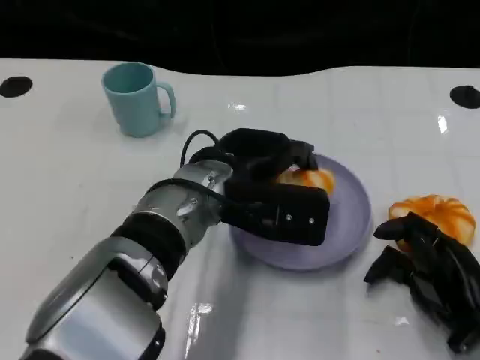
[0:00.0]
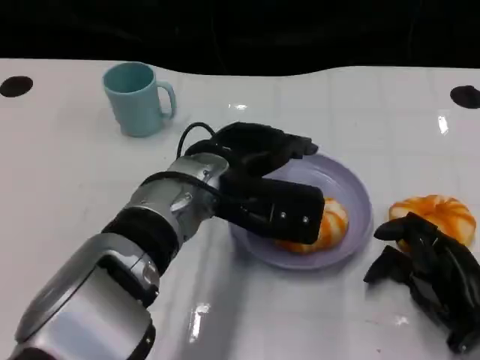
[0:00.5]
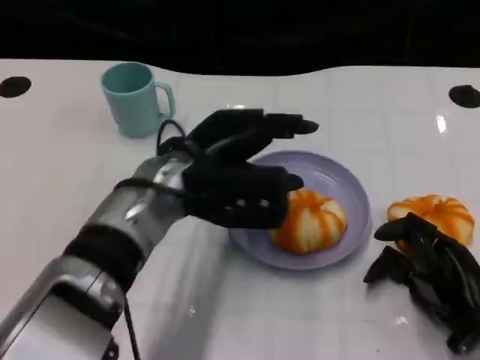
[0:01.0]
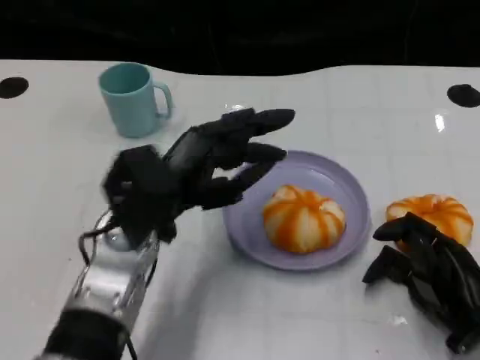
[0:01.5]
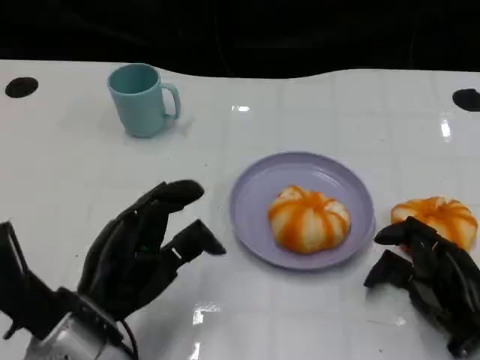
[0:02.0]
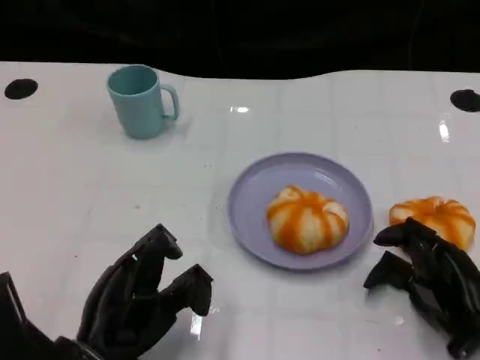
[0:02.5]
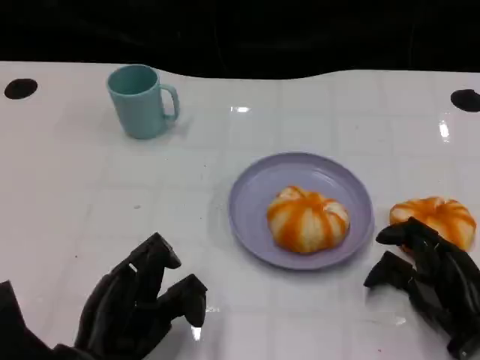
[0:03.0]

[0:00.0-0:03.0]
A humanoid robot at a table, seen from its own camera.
Task of the whole recording: Grasp the bread from the table and place it into the plate.
0:00.0 to 0:01.5: The left hand heads to the left, covering roughly 10 cm.
0:01.5 to 0:03.0: The left hand is displaced backward, downward and to the left by about 15 cm.

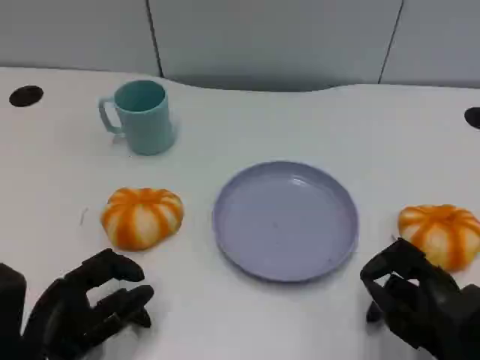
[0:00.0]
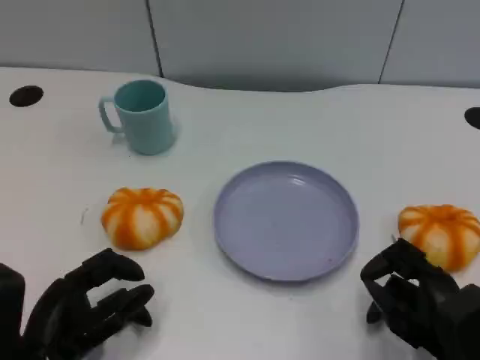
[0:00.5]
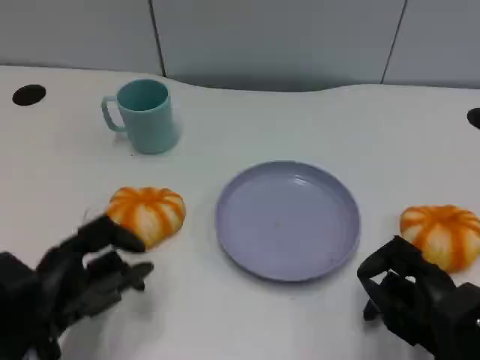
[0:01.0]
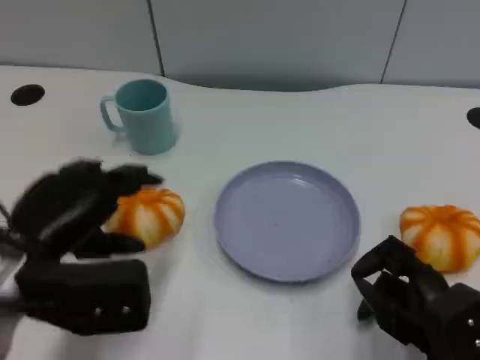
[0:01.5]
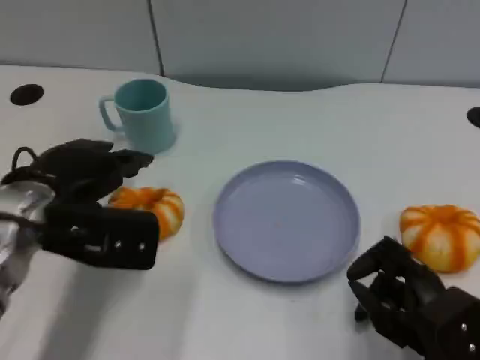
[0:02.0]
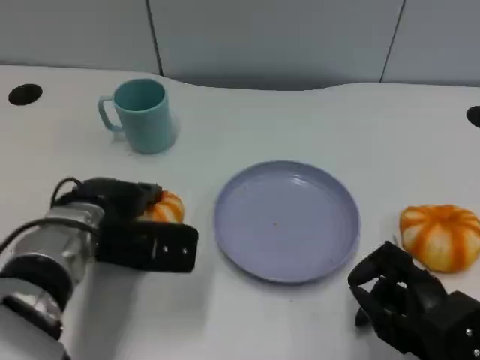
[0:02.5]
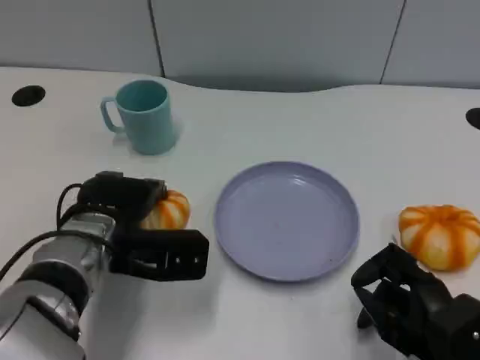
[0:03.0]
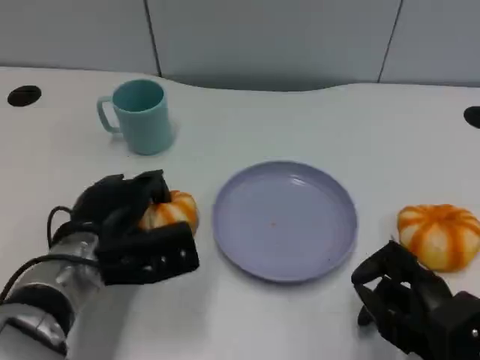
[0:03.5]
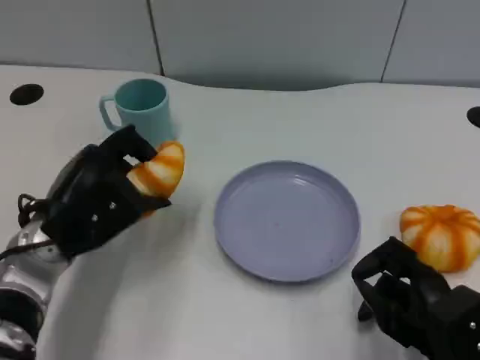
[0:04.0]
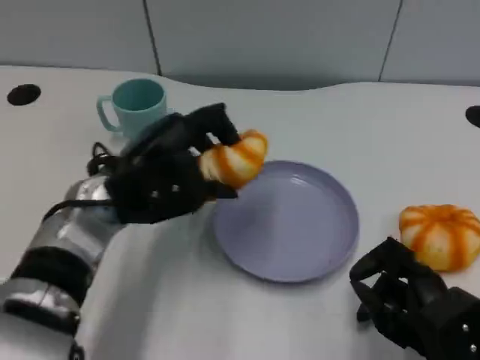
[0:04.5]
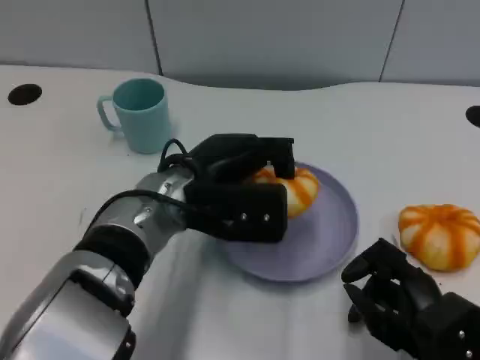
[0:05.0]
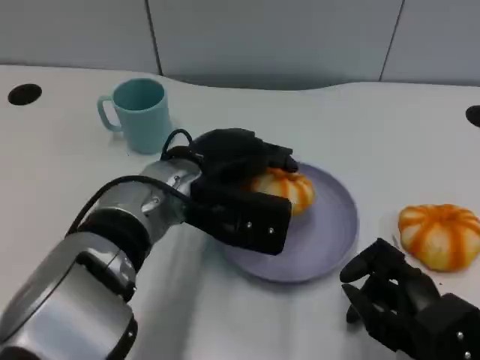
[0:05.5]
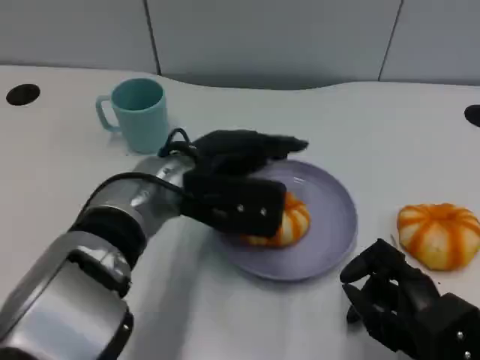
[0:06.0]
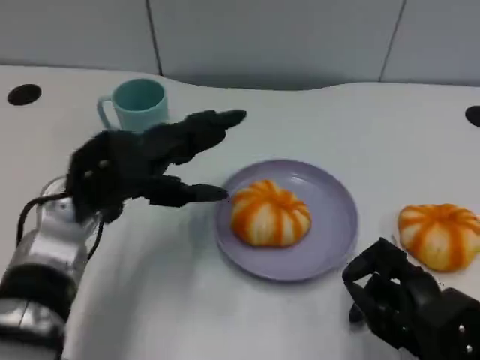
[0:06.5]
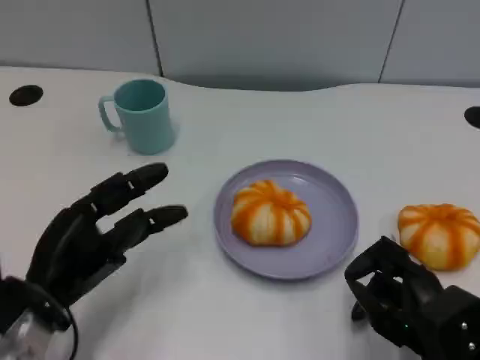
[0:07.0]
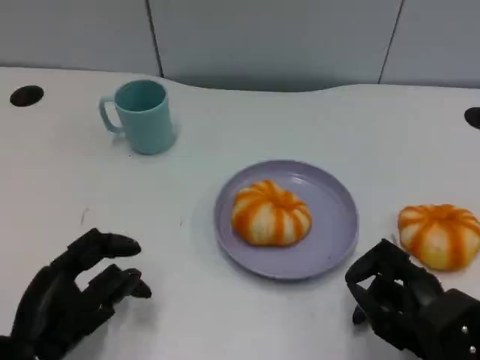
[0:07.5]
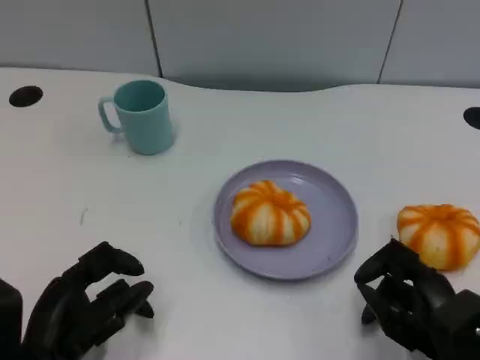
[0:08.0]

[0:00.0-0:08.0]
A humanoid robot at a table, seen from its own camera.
Task of the whole recording: Grasp the bread from the table and place it into the plate.
0:00.0 to 0:02.0: The left hand moves forward and upward, about 15 cm.
0:04.0 to 0:06.0: The left hand goes some 10 cm to the right.
0:06.0 to 0:08.0: The left hand heads backward, to the left and downward, covering some 25 cm.

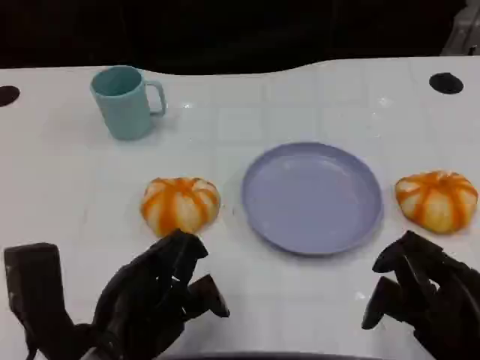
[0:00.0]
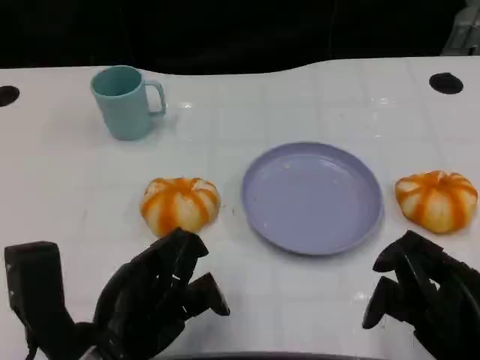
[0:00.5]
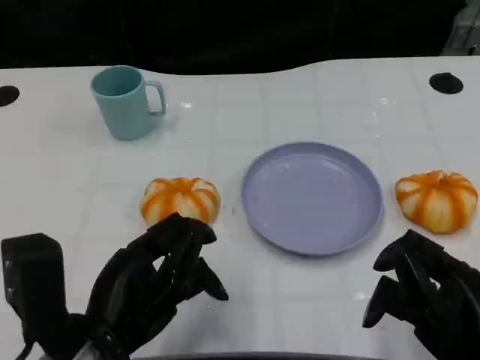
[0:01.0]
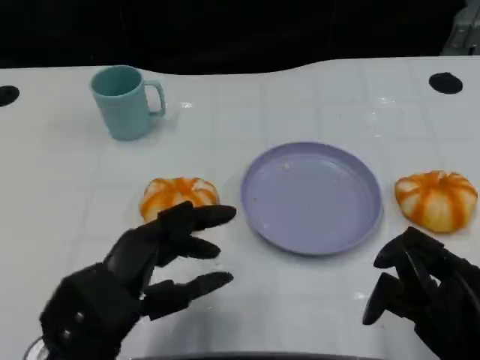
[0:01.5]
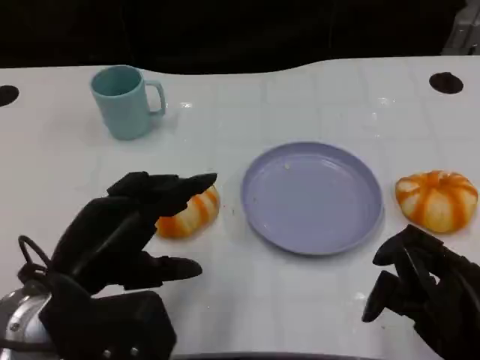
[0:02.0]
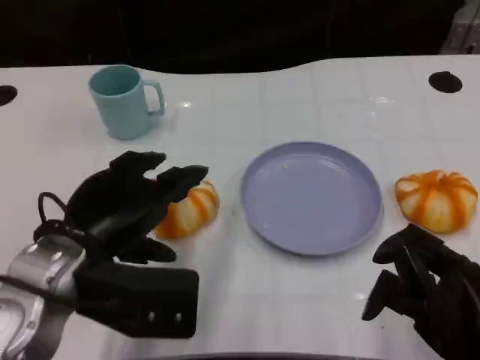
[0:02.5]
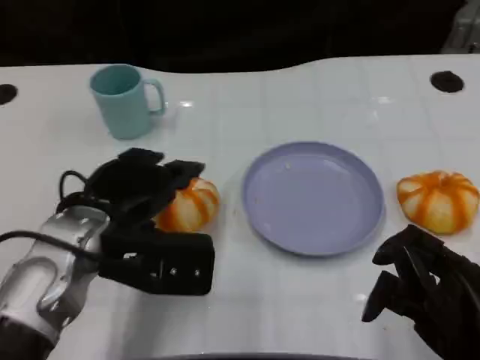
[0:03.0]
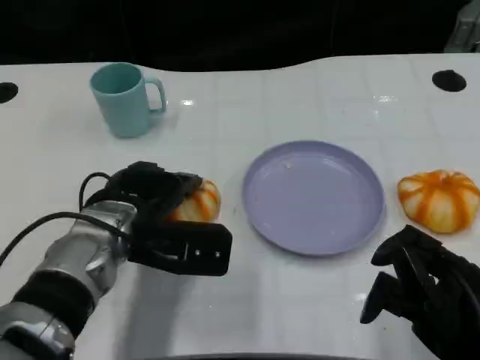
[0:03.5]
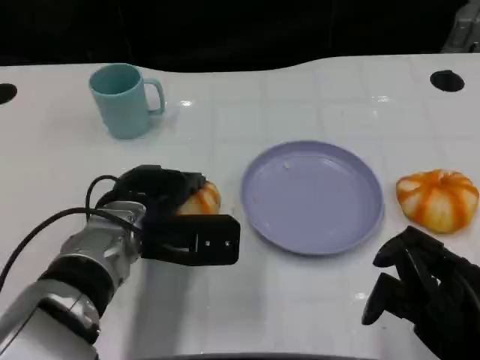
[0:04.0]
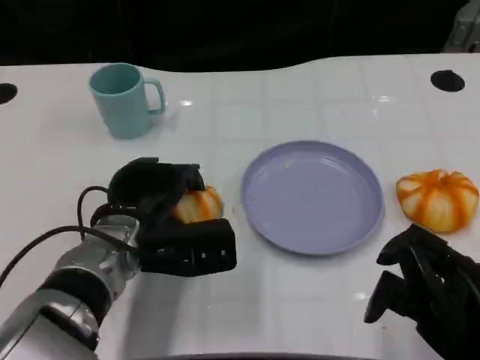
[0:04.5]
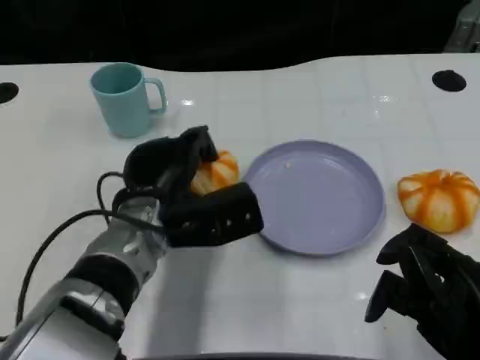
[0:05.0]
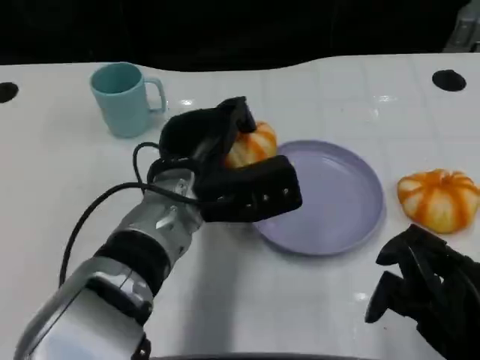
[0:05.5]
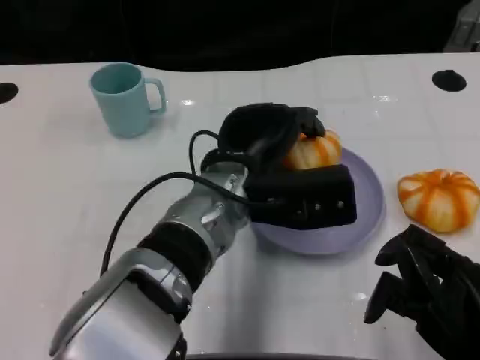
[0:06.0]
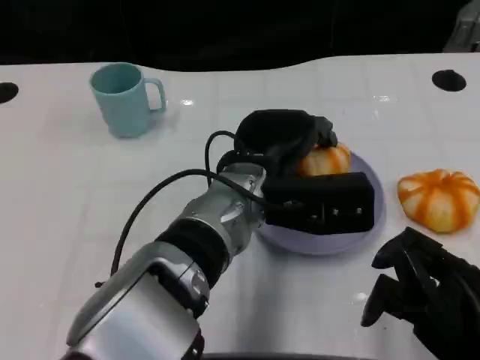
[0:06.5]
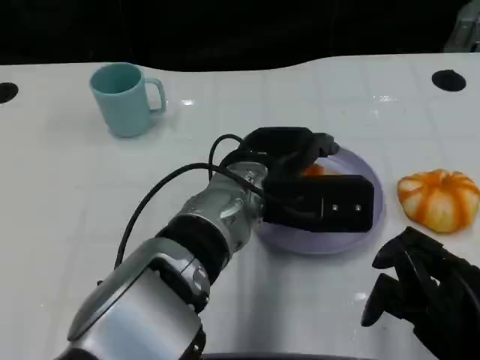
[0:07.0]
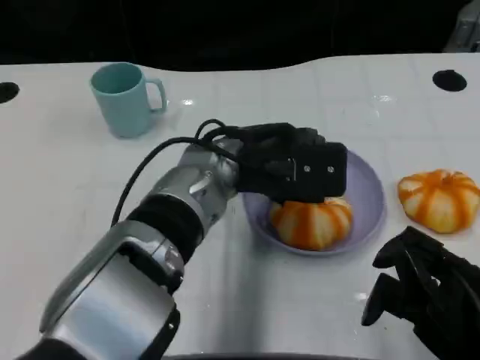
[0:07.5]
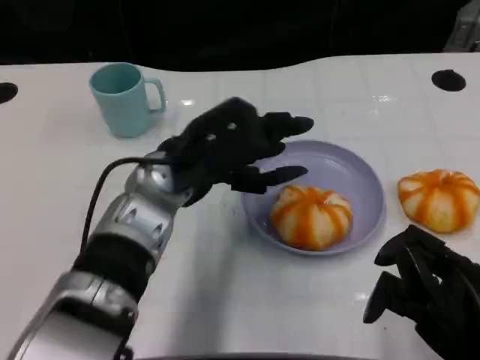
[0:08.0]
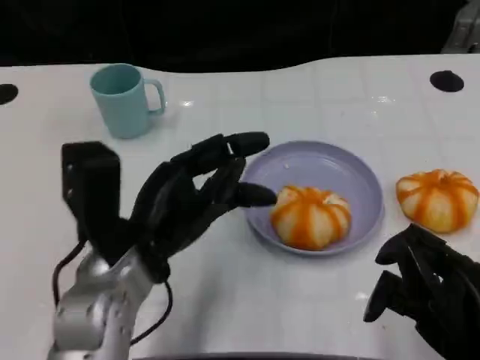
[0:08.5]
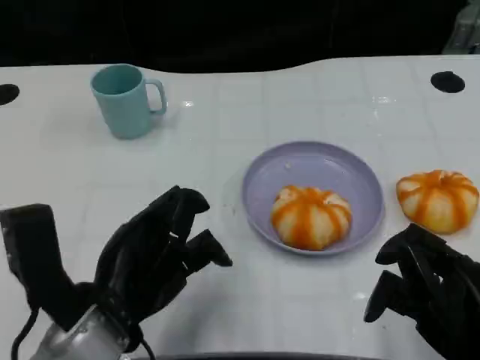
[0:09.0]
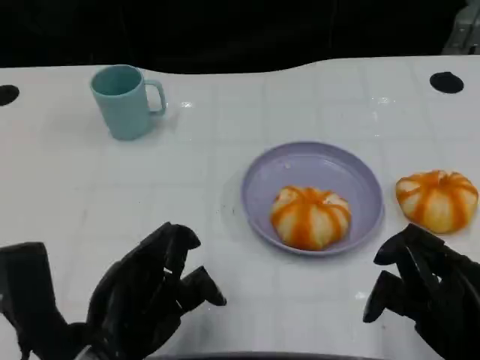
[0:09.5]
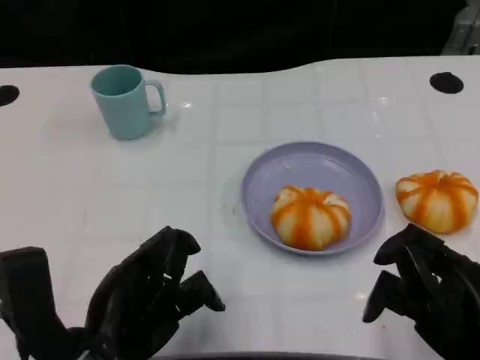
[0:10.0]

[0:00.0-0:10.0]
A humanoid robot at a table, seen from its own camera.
Task of the whole recording: Grasp the bread from the table and place it into the plate.
0:00.0 to 0:02.0: The left hand shifts by about 5 cm.
0:02.0 to 0:04.0: The left hand travels forward and to the right by approximately 10 cm.
0:04.0 to 0:06.0: The left hand heads to the right, covering approximately 10 cm.
0:06.0 to 0:08.0: The left hand is displaced to the left by approximately 10 cm.
0:08.0 to 0:10.0: The left hand shifts approximately 15 cm backward and to the left.

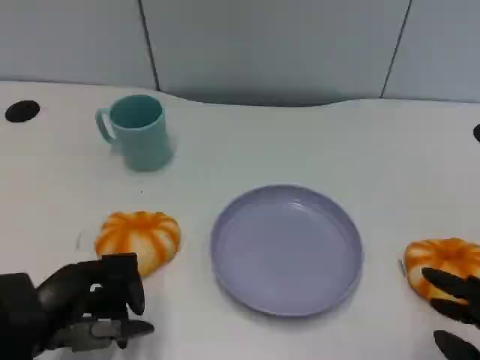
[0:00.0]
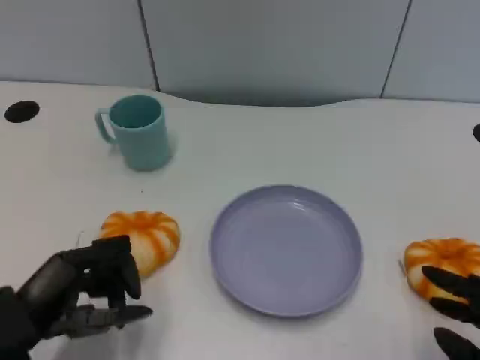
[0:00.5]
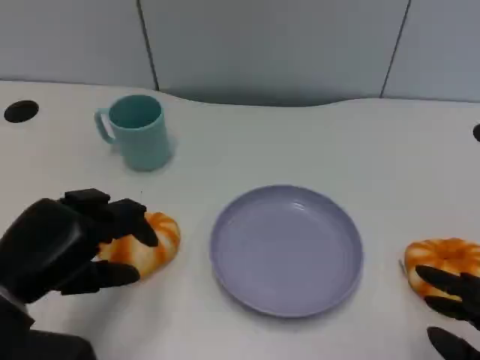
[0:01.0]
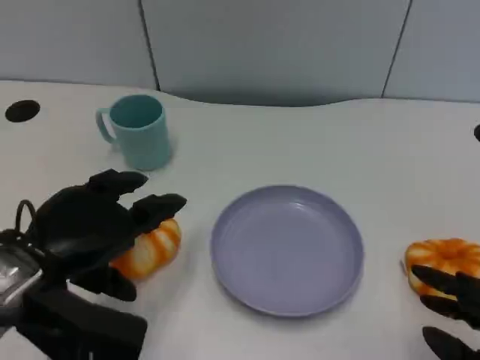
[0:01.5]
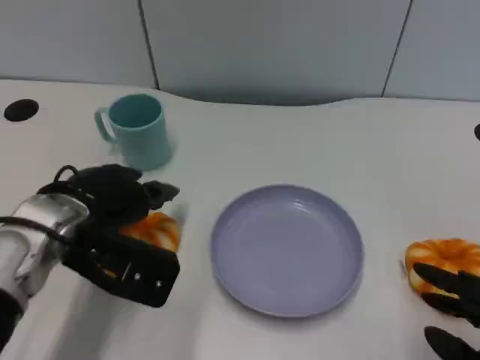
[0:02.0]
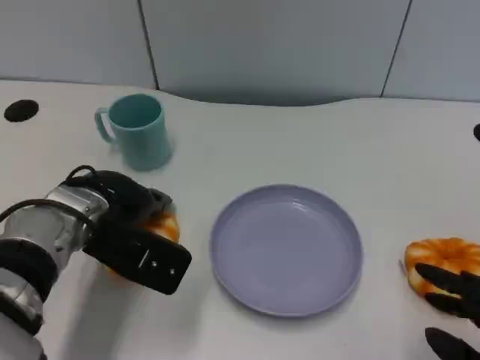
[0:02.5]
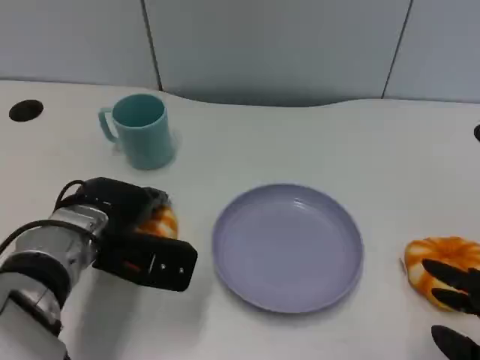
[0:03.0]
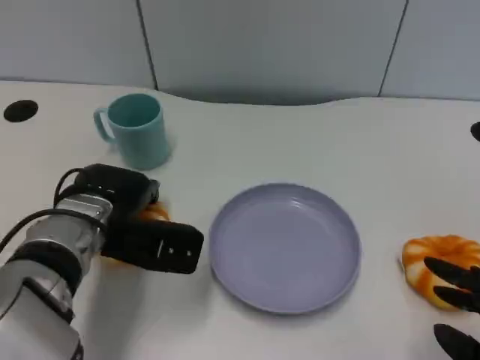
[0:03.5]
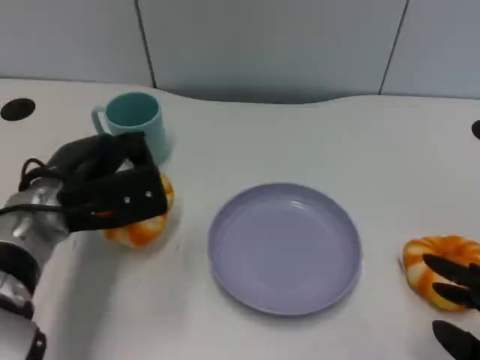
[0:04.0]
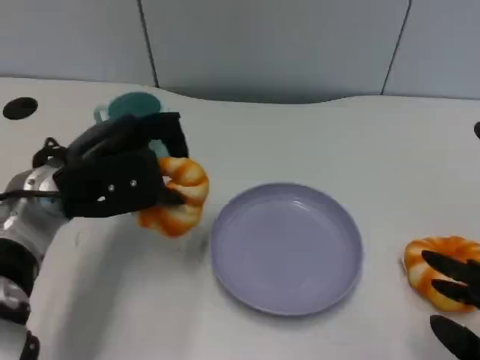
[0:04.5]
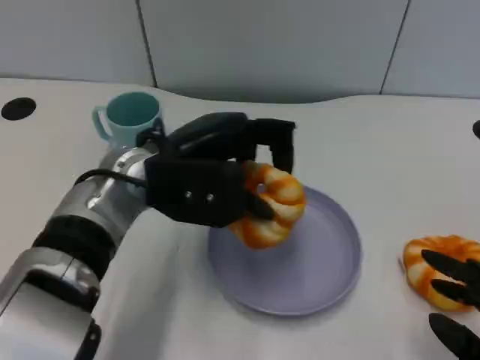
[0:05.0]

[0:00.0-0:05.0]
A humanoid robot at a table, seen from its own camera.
Task of the whole recording: Grasp the bread from the table and place it into the plate.
0:00.0 to 0:02.5: The left hand heads forward and to the right, covering approximately 15 cm.
0:02.5 to 0:05.0: The left hand moves to the right and upward, roughly 10 cm.
